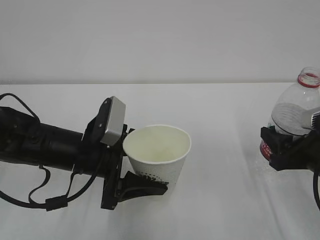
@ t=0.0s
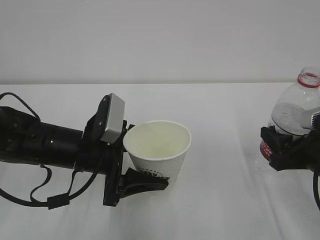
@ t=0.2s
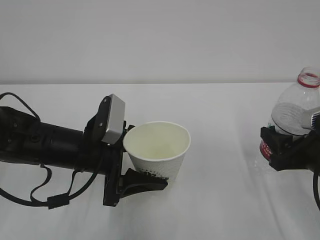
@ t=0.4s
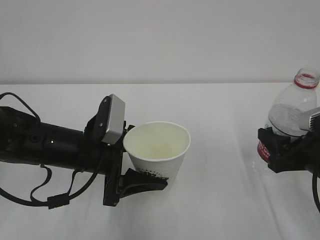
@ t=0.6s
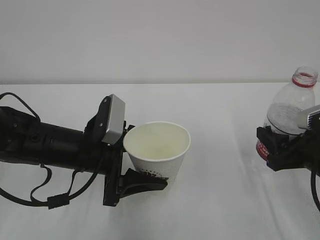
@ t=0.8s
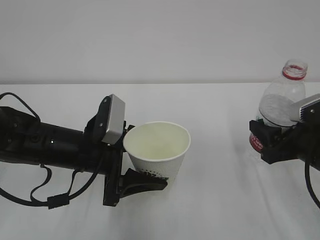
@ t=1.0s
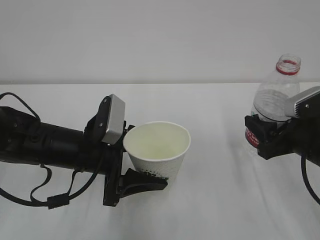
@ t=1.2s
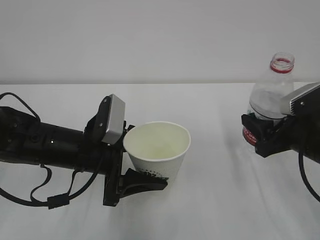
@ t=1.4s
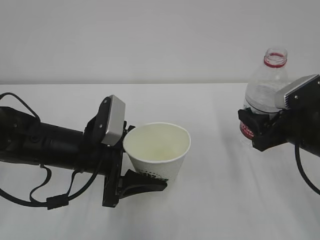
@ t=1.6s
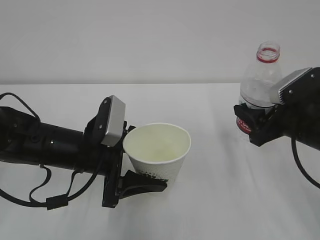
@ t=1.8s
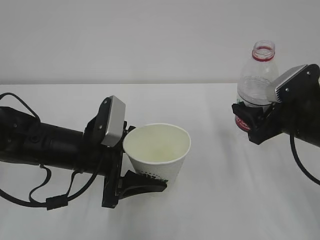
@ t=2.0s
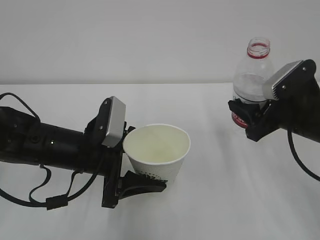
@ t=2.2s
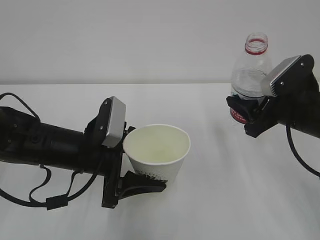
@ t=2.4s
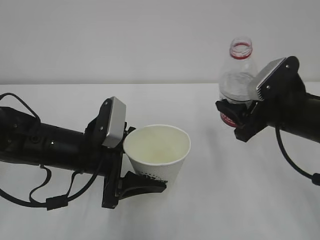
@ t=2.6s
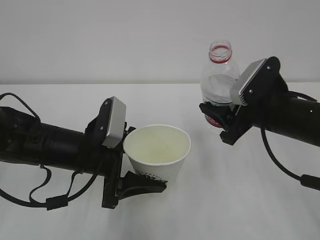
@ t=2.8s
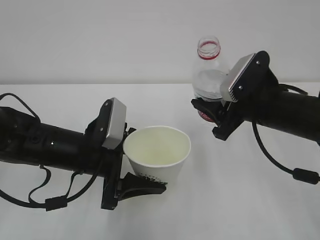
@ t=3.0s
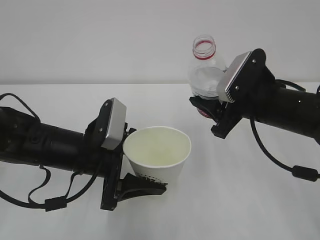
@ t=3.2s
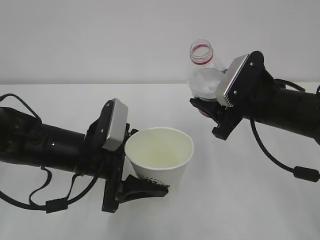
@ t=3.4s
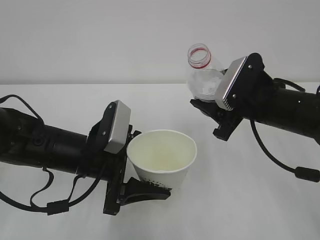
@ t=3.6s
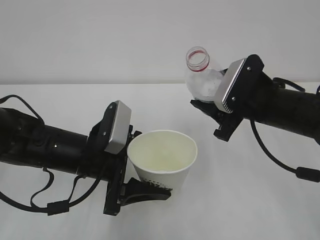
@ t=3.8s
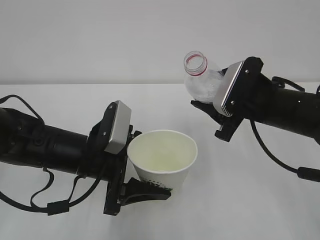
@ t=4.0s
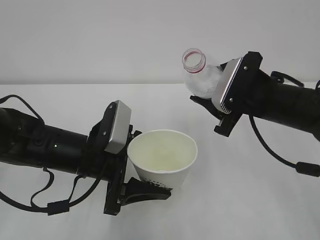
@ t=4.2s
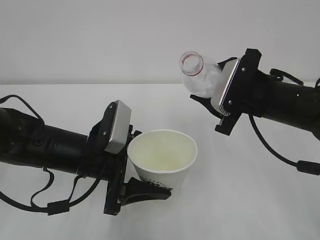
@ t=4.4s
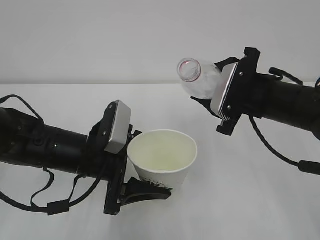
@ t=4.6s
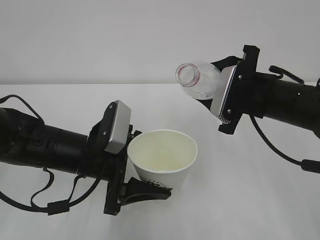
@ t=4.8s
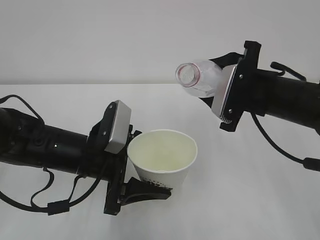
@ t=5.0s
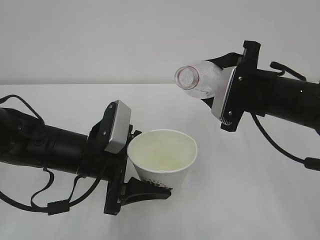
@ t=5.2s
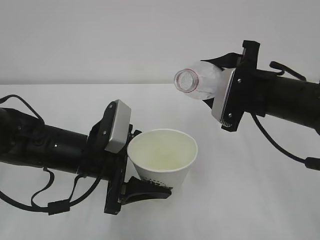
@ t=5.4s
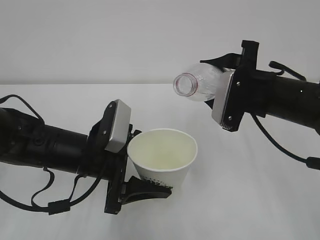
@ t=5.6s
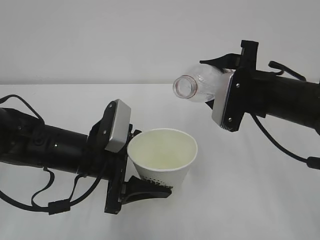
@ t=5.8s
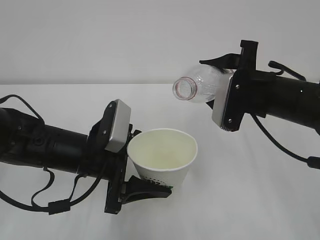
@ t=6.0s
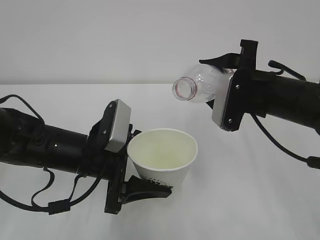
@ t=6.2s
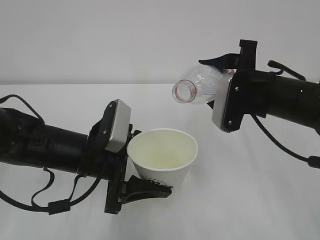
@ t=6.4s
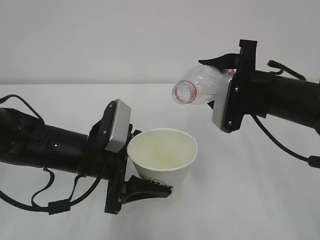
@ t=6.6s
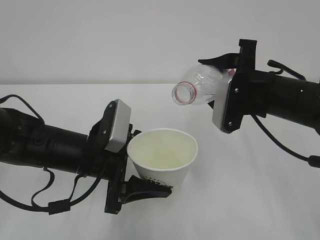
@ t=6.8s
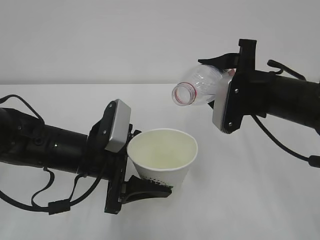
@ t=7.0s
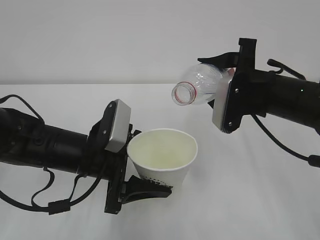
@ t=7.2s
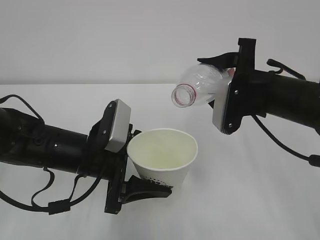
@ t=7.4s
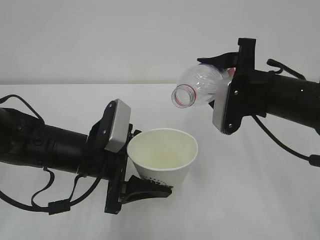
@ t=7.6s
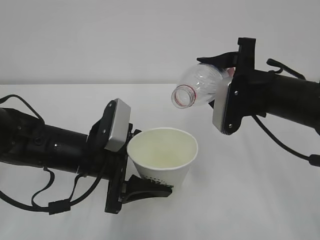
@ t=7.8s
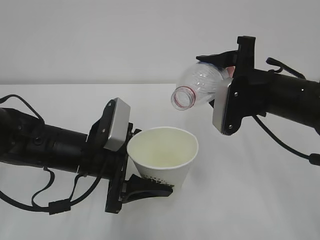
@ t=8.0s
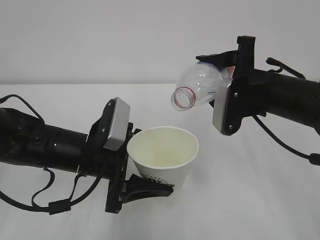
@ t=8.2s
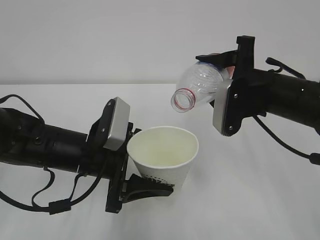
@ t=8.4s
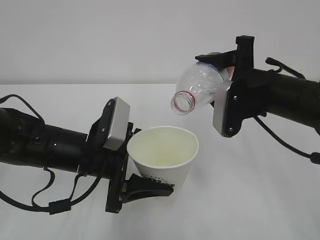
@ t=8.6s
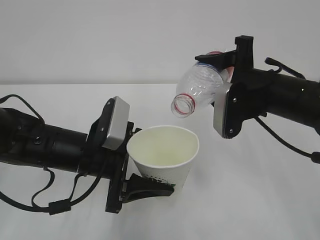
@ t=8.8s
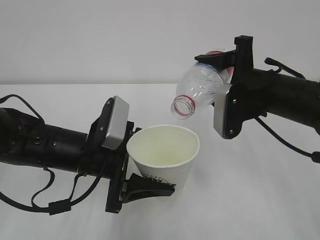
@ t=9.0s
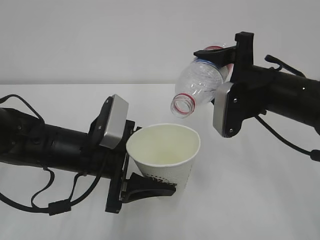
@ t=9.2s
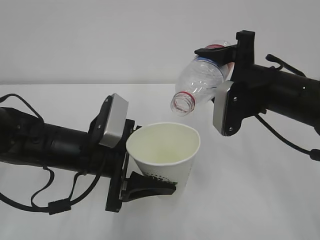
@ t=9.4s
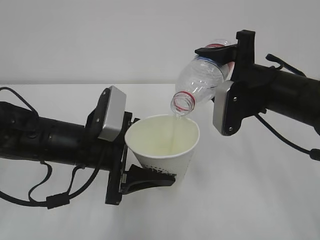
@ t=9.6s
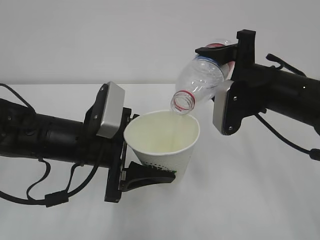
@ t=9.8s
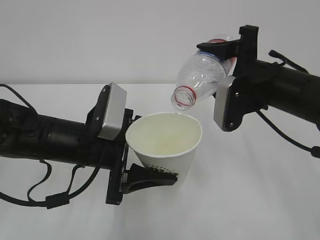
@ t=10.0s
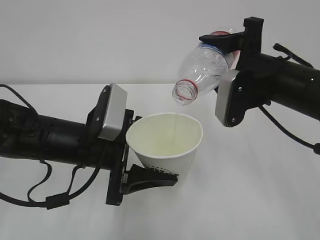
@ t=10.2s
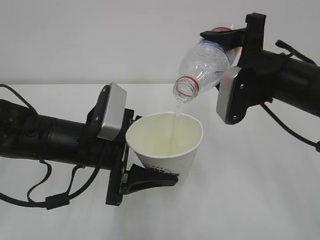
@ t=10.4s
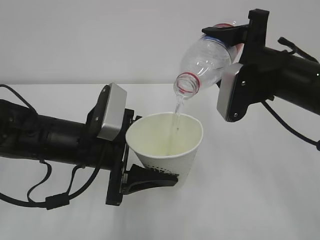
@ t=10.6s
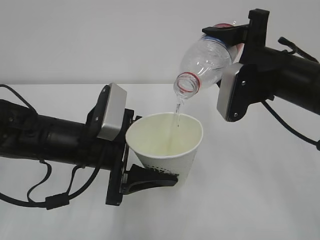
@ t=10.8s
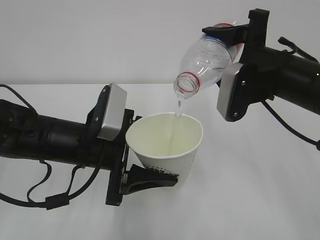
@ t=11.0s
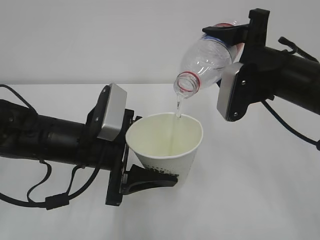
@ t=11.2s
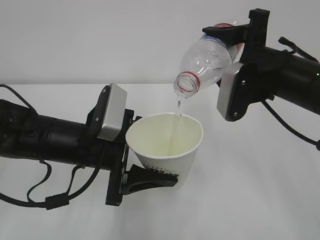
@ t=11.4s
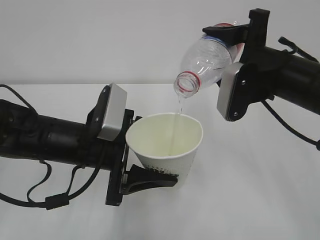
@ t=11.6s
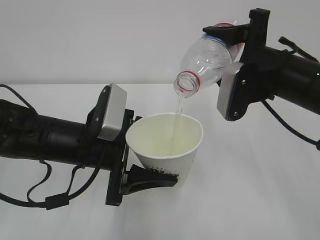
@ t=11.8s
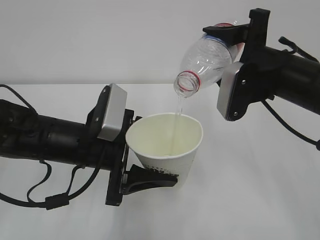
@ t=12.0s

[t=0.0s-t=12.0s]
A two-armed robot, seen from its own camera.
t=0.0s to t=1.6s: There are only small adjustments of the grippers.
t=1.6s to t=3.0s: The right gripper heads to the left, covering approximately 5 cm.
t=6.0s to t=9.0s: The grippers stay close to where they were, moving slightly.
t=9.0s to t=10.4s: There are only small adjustments of the grippers.
t=10.4s to t=12.0s: Both grippers stay put.

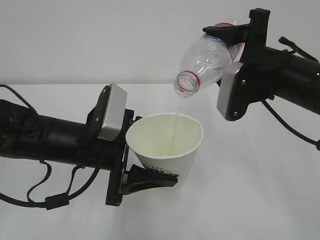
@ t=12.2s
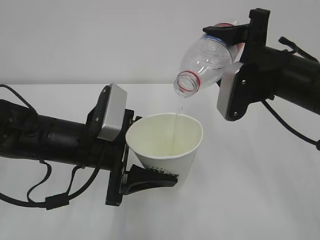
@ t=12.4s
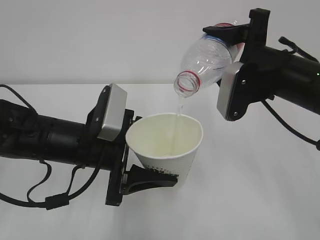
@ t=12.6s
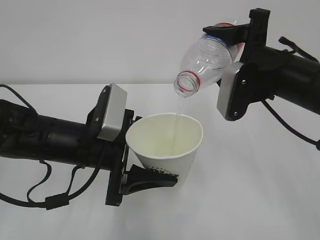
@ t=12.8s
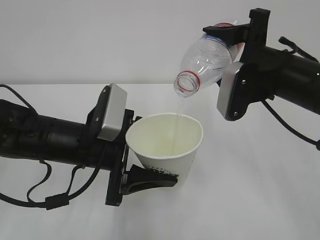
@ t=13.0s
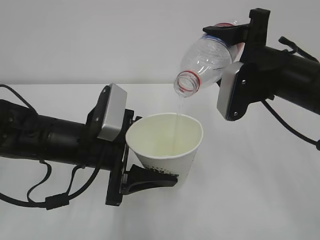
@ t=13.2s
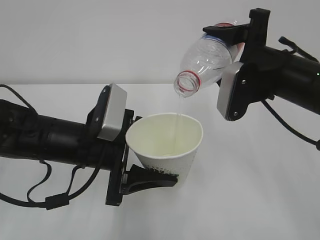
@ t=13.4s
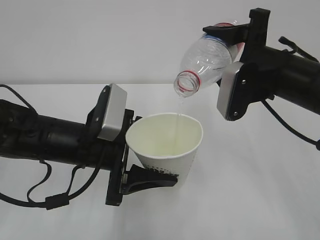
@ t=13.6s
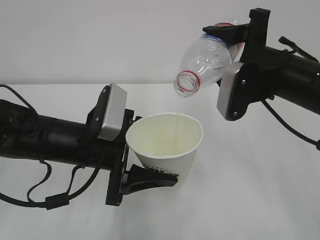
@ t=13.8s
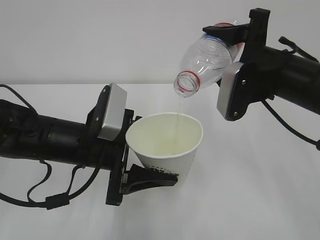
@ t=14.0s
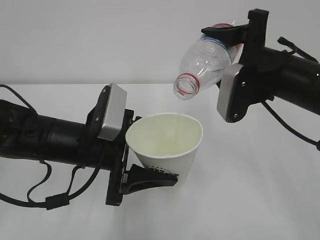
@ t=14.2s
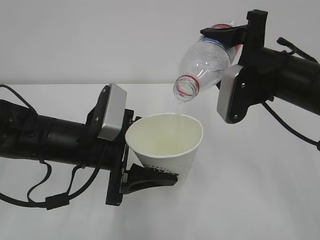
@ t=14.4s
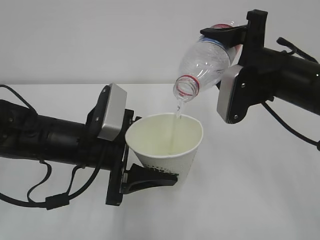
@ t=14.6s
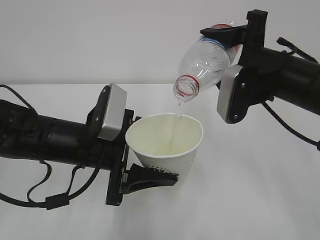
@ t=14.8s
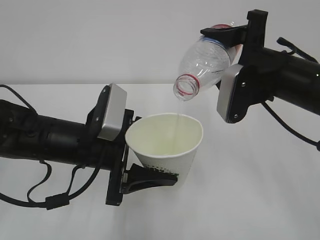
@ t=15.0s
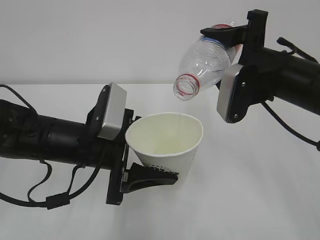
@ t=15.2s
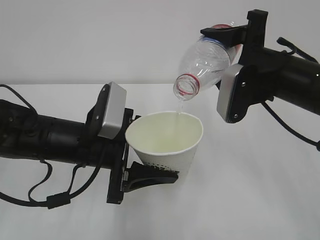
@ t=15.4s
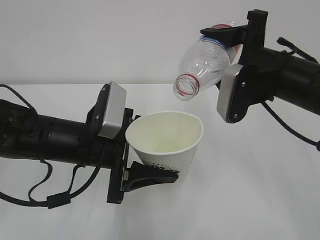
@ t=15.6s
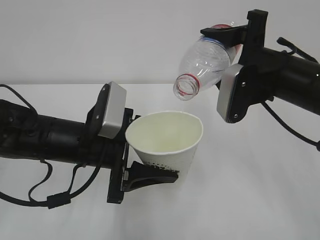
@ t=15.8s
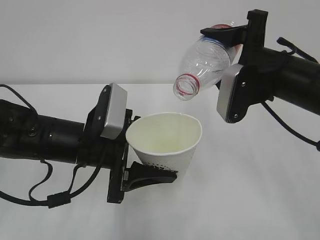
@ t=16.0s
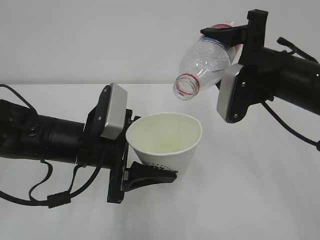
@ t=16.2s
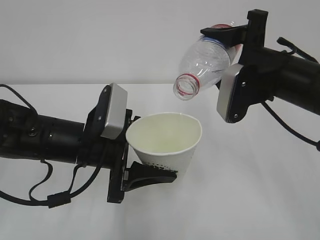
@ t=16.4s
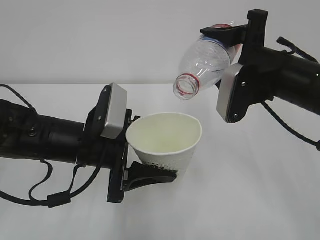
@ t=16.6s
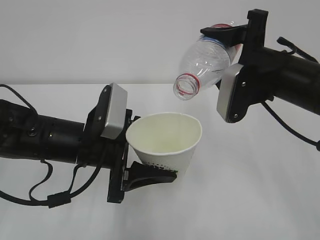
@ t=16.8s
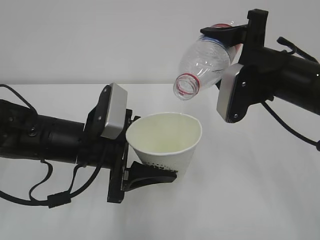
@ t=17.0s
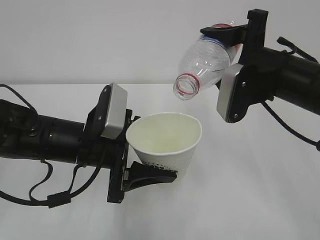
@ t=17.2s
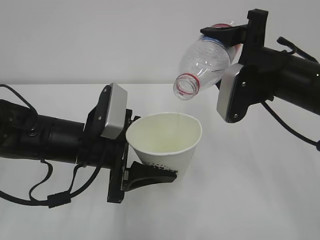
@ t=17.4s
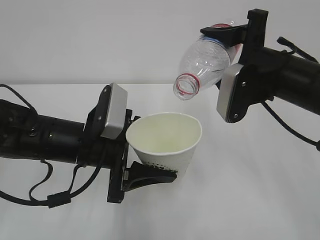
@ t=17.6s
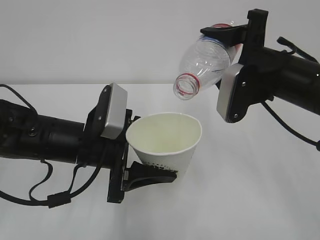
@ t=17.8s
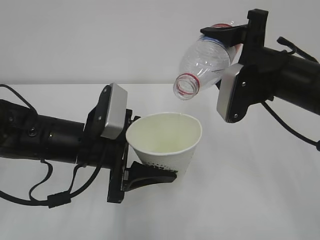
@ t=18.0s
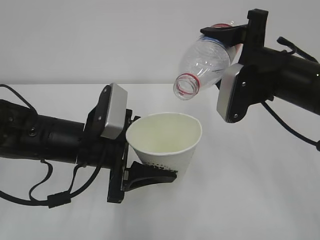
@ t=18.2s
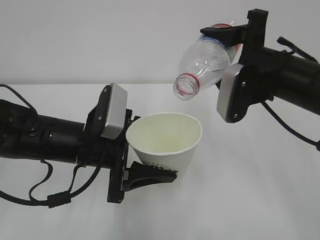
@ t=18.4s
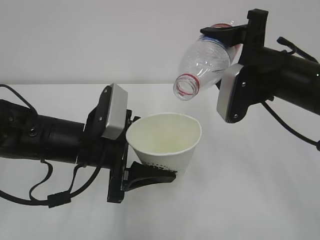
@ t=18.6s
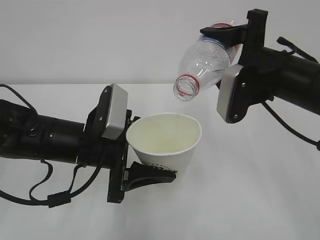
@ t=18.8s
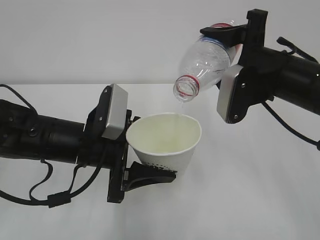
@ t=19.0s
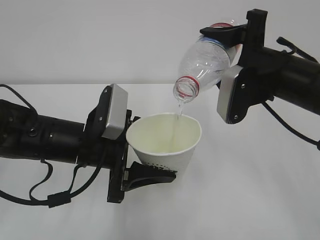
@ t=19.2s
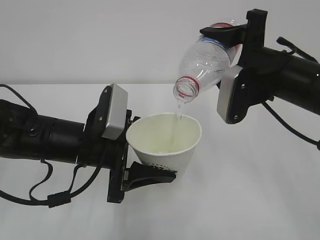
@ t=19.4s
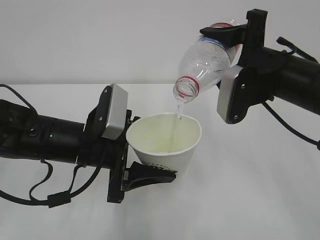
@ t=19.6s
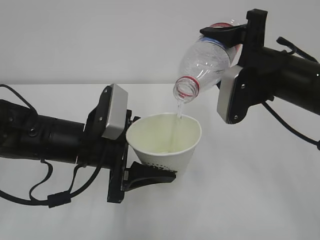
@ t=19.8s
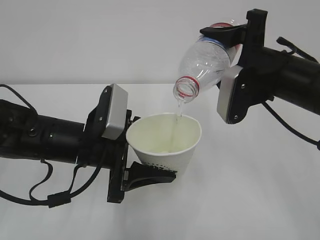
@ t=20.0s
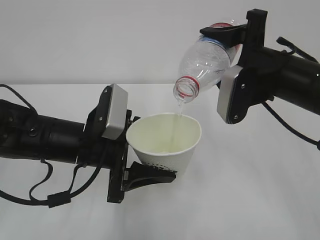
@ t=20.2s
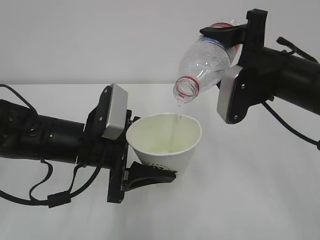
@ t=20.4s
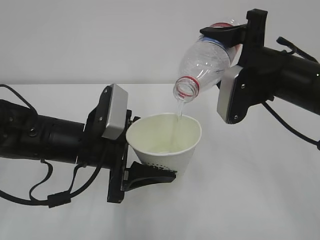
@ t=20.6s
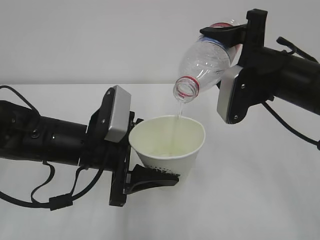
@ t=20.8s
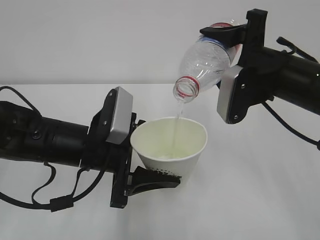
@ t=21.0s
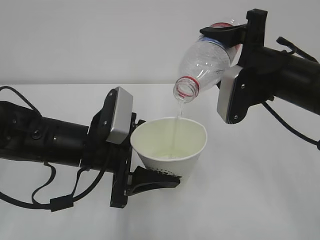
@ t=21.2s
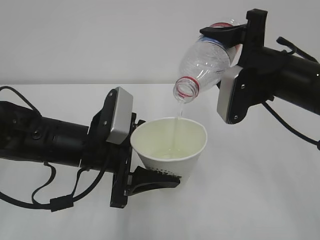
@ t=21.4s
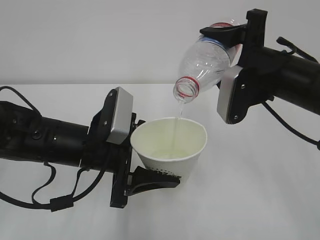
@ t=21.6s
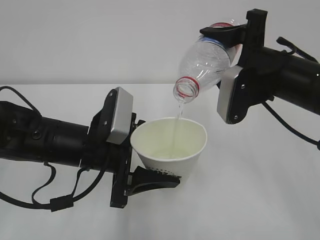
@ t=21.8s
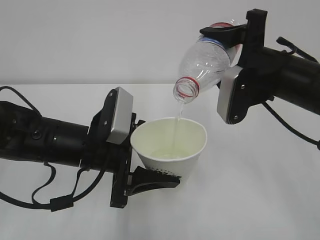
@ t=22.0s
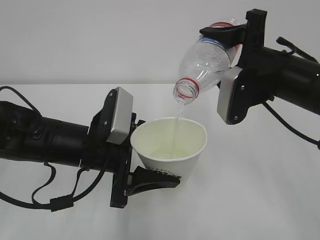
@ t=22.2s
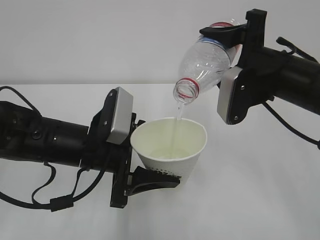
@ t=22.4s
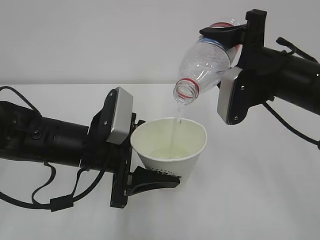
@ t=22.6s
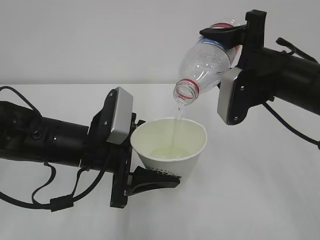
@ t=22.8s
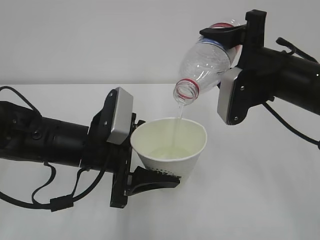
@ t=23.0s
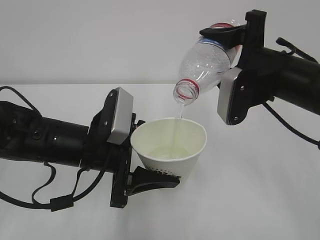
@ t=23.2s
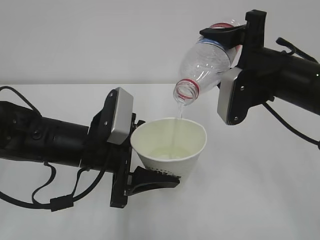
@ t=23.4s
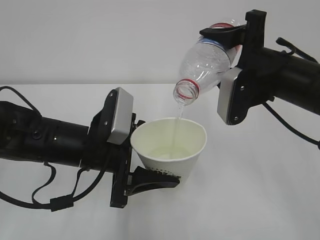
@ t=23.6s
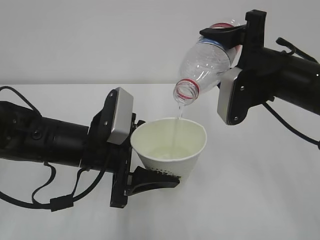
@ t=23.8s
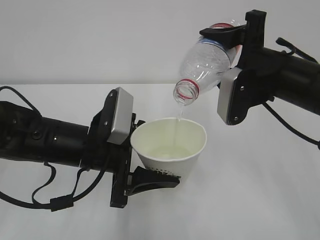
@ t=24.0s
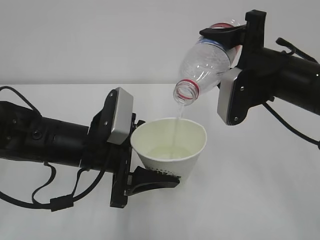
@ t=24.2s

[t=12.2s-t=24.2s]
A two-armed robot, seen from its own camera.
t=12.2s to t=24.2s: Neither gripper changes place.
